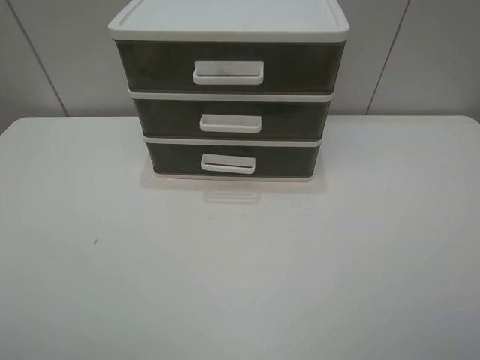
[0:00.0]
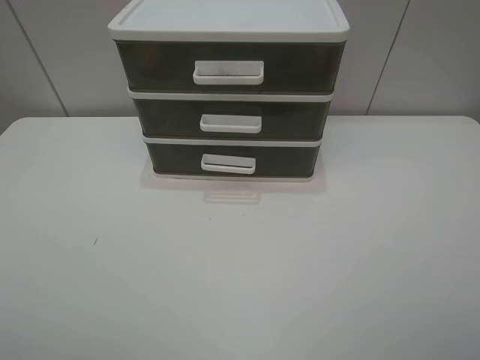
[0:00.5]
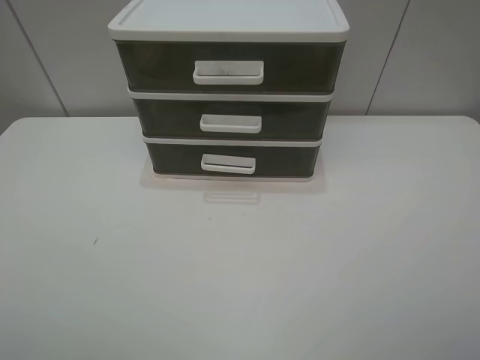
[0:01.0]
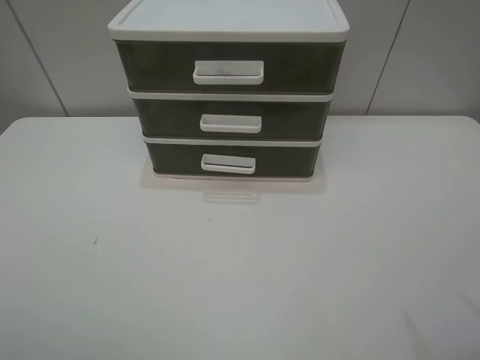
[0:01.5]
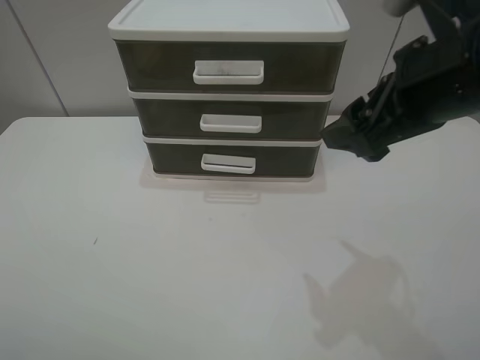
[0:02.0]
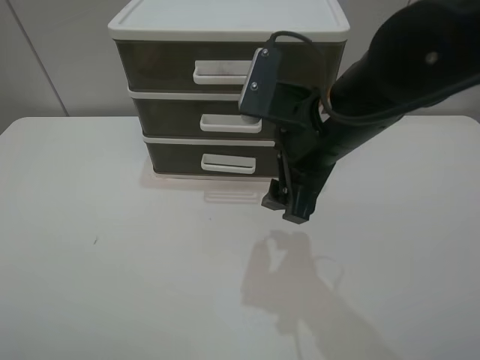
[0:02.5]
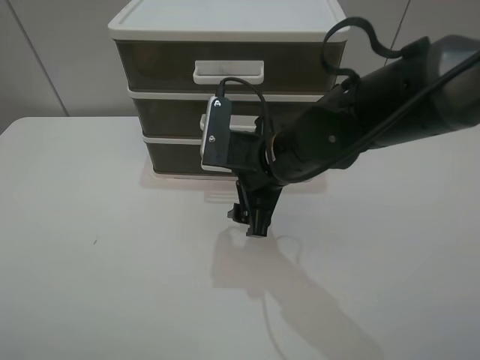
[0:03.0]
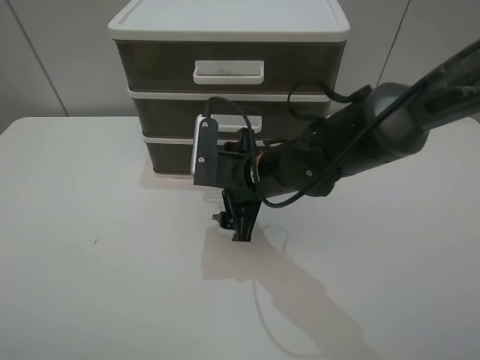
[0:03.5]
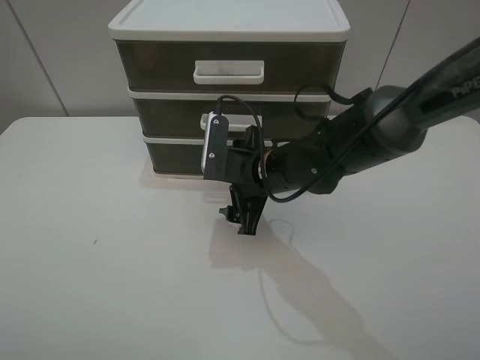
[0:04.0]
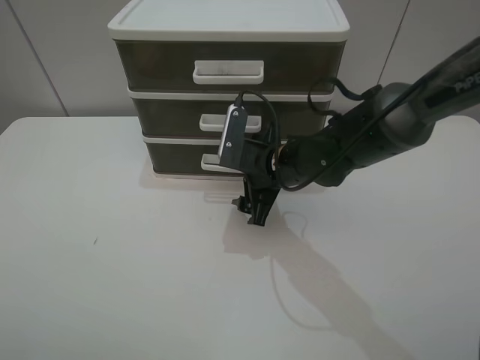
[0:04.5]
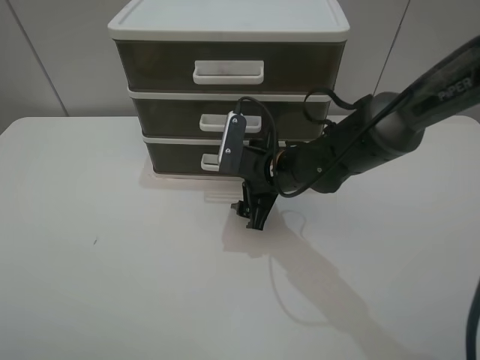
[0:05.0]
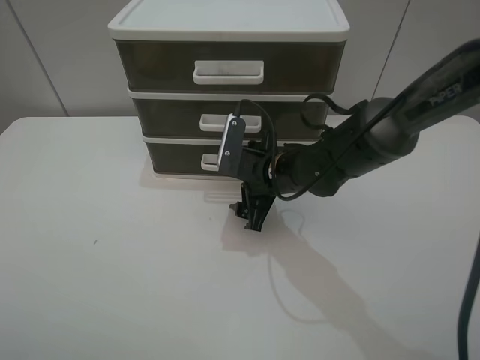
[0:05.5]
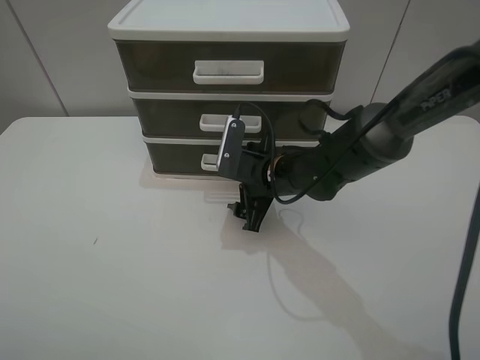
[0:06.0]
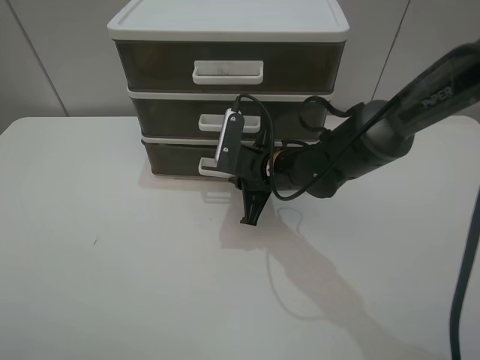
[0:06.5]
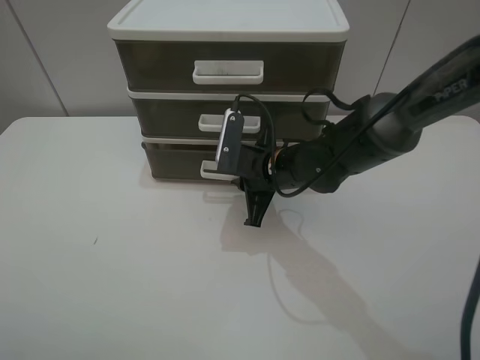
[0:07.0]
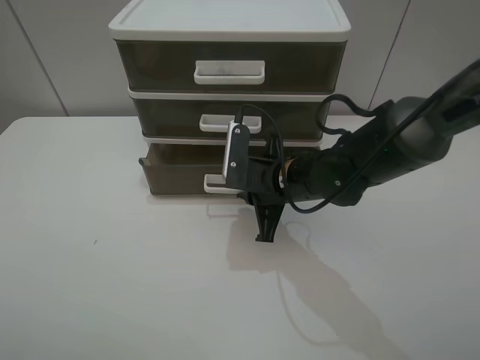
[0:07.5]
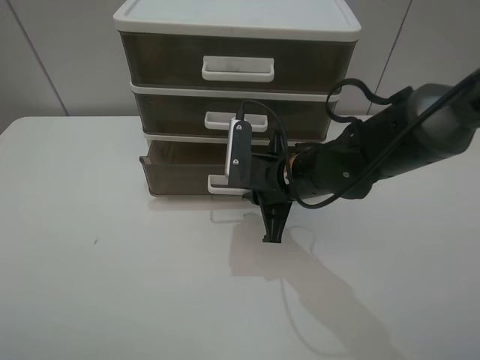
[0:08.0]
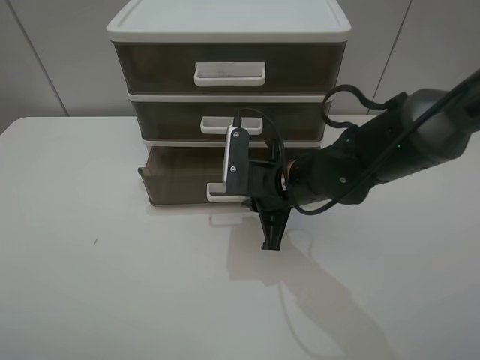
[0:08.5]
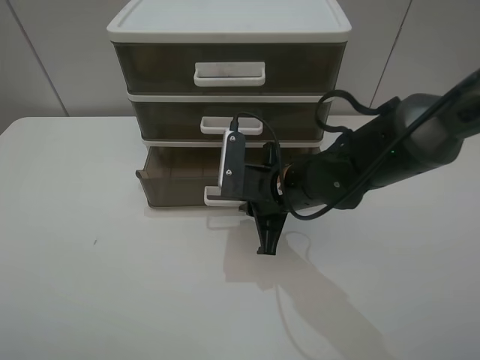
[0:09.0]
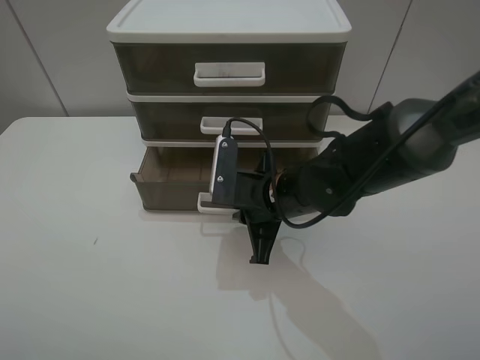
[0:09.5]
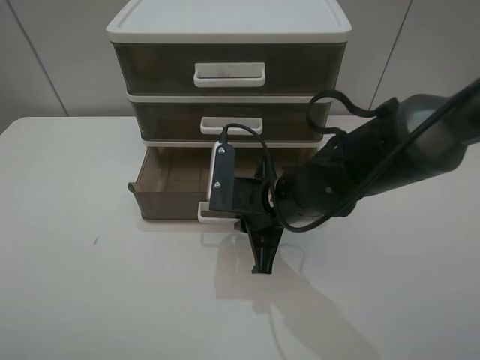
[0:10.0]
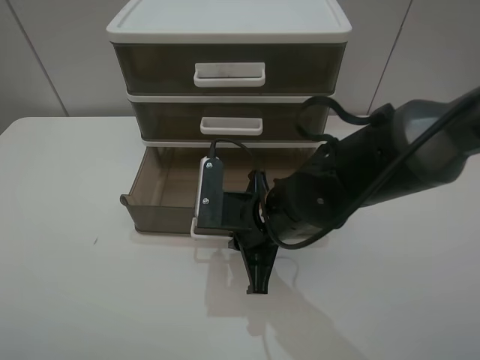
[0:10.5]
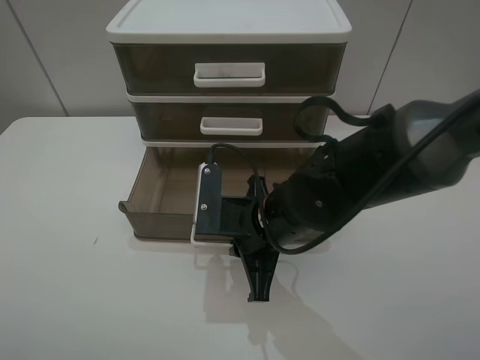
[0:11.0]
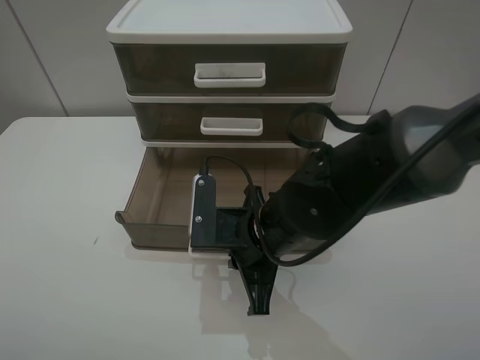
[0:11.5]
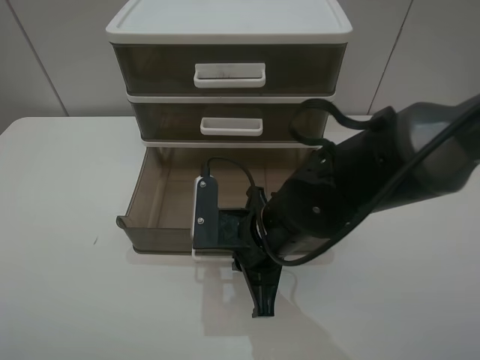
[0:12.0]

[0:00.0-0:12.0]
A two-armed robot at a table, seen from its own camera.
Task of the whole recording: open the bottom drawer.
Step, 0:00.0 to 0:07.0: Grab the bottom drawer with the right gripper.
0:00.0 to 0:02.0: The right gripper is displaced forward and to the left by approximately 25 cm.
0:02.0 to 0:04.0: The right gripper heads downward, to the left and forward, covering roughly 25 cm.
0:04.0 to 0:06.0: The grippers make only small movements.
0:06.0 to 0:08.0: The right gripper moves approximately 5 cm, and closes its fingers.
0:08.0 to 0:10.0: There are only small adjustments of the grippers.
0:10.0 to 0:12.0: There are only small adjustments of the grippers.

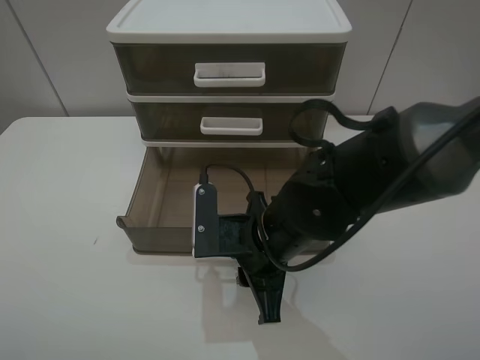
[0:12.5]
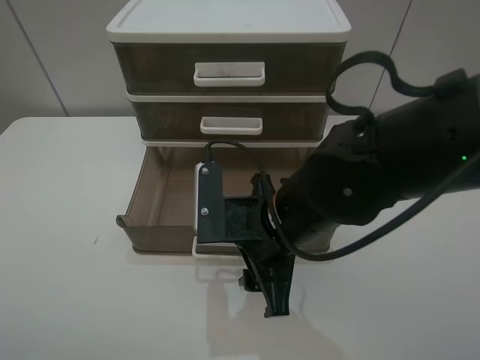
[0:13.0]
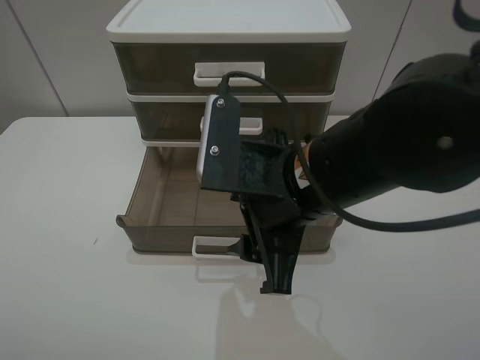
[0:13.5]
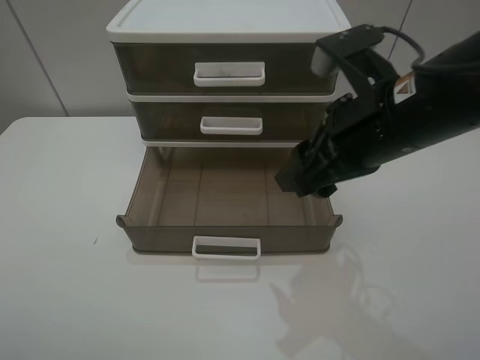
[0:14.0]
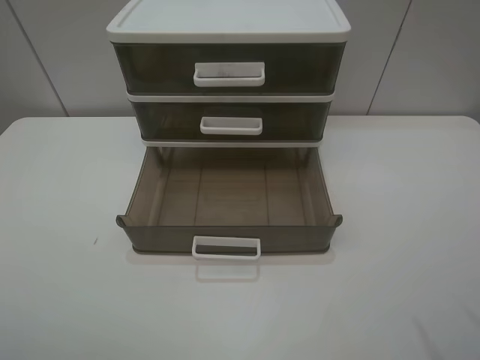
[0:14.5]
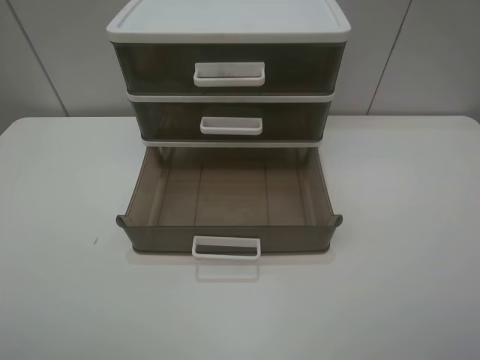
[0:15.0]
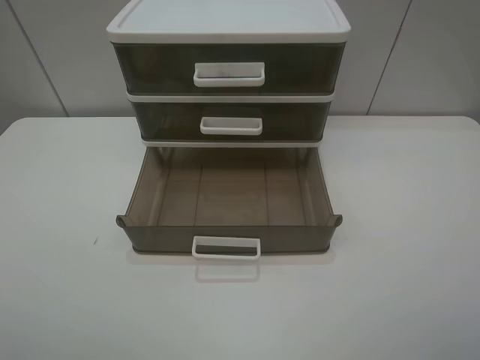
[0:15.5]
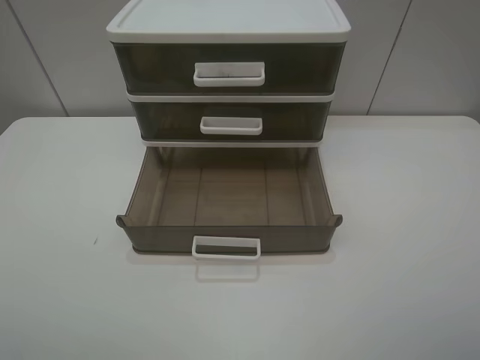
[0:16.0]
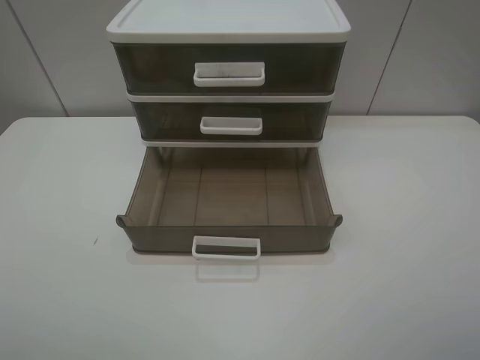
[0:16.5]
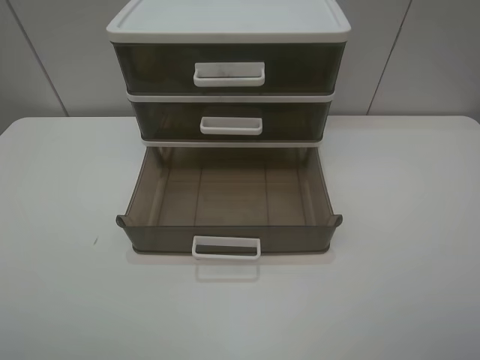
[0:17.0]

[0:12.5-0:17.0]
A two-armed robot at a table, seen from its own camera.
Task of the whole recording: open the bottom drawer.
0:12.5 to 0:14.5: The right gripper heads to the right, upward and backward, covering roughly 35 cm, and opens its fingers.
